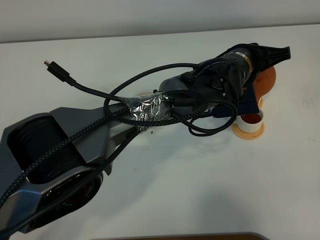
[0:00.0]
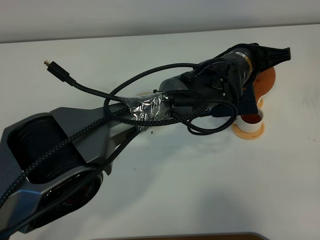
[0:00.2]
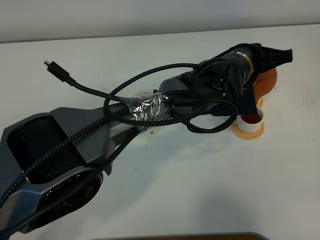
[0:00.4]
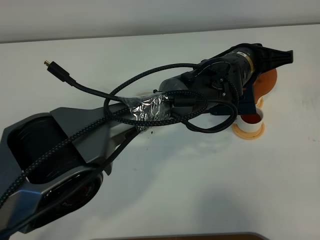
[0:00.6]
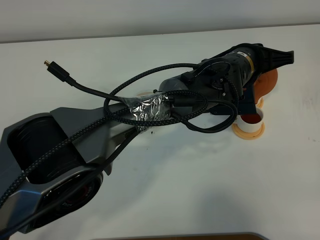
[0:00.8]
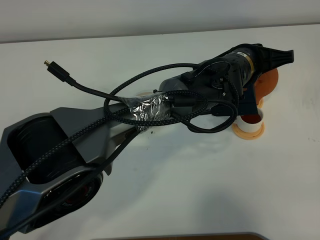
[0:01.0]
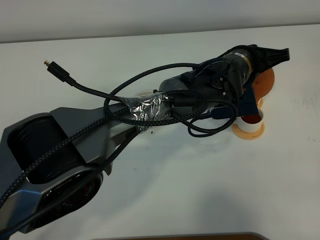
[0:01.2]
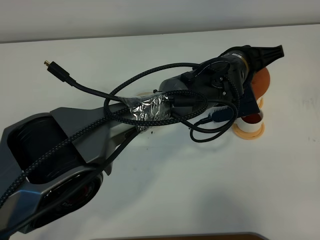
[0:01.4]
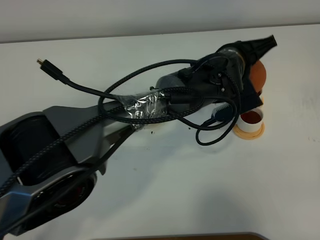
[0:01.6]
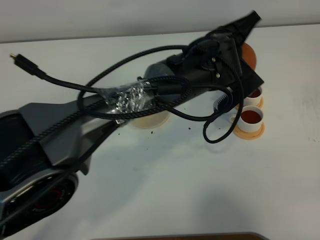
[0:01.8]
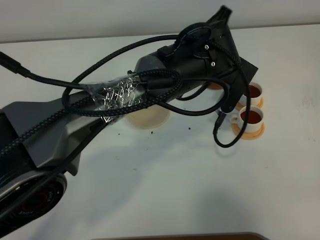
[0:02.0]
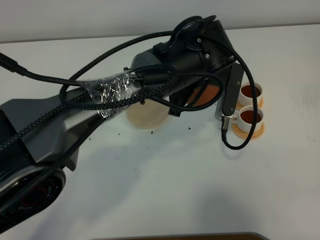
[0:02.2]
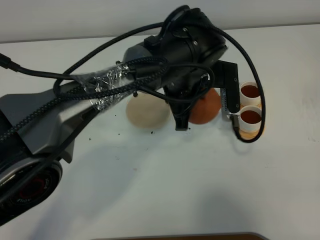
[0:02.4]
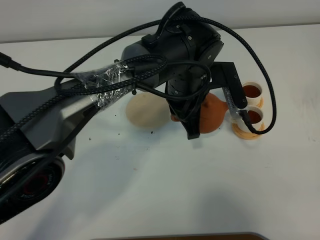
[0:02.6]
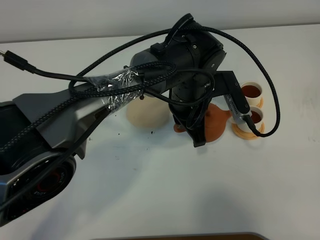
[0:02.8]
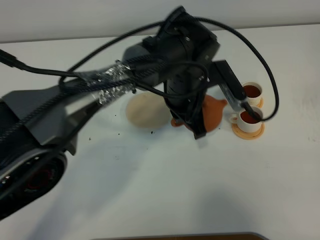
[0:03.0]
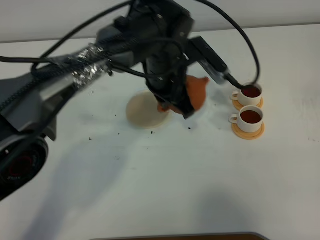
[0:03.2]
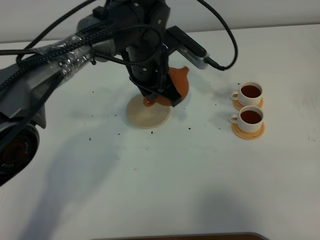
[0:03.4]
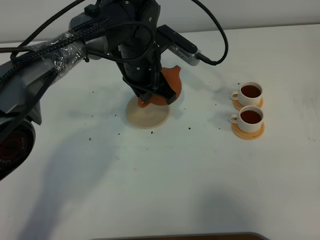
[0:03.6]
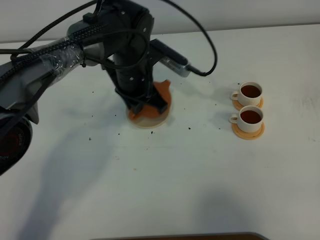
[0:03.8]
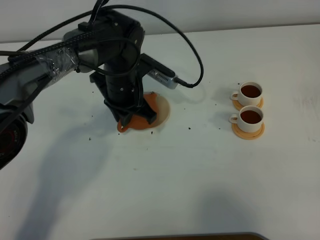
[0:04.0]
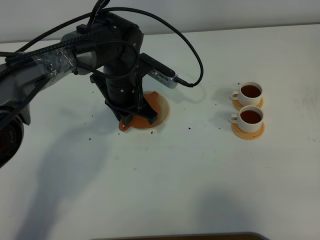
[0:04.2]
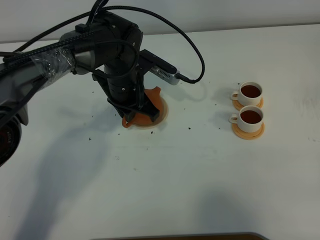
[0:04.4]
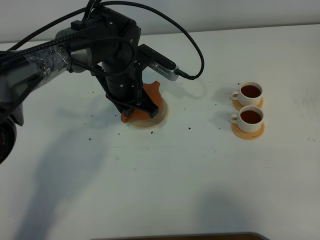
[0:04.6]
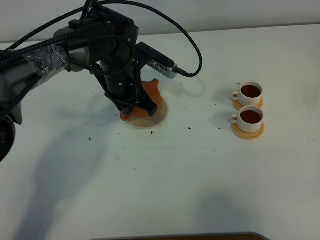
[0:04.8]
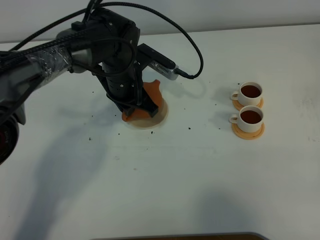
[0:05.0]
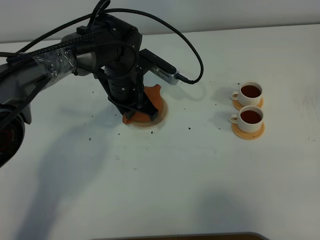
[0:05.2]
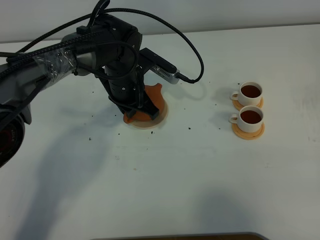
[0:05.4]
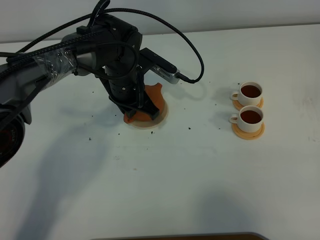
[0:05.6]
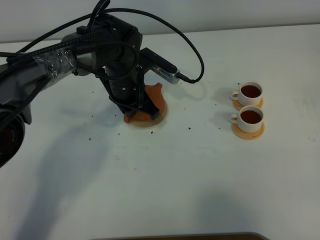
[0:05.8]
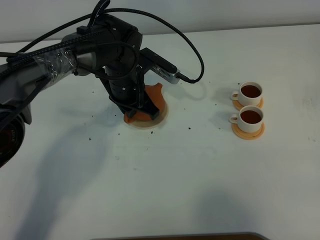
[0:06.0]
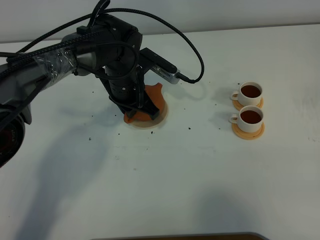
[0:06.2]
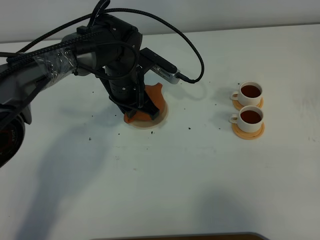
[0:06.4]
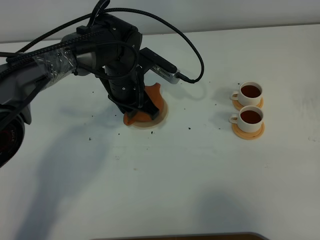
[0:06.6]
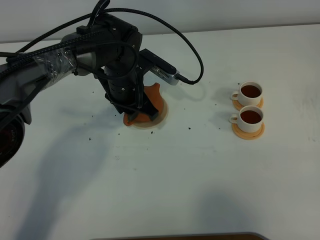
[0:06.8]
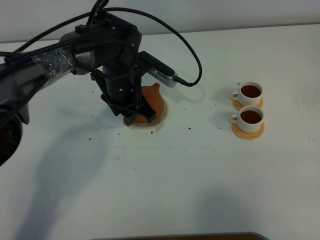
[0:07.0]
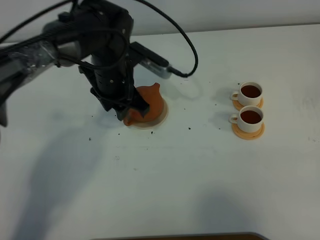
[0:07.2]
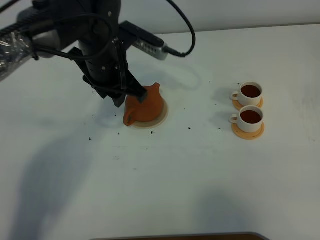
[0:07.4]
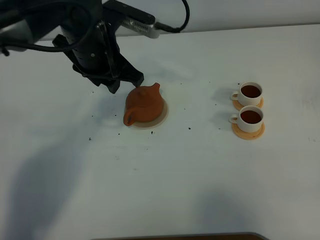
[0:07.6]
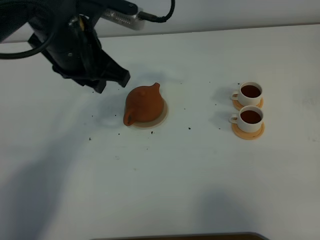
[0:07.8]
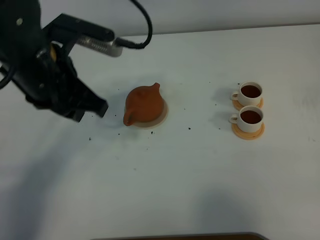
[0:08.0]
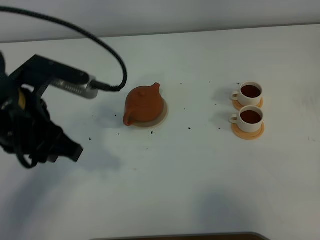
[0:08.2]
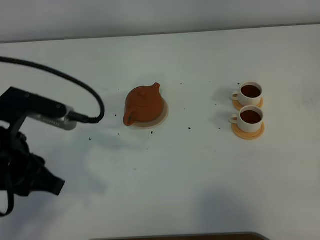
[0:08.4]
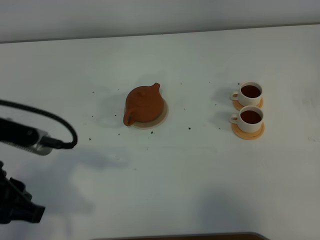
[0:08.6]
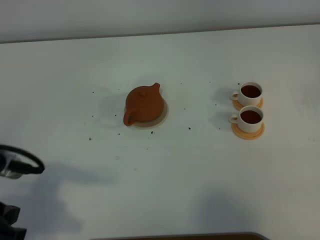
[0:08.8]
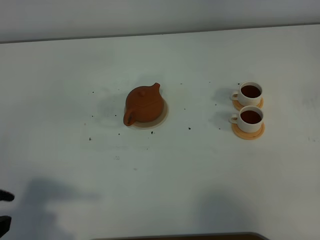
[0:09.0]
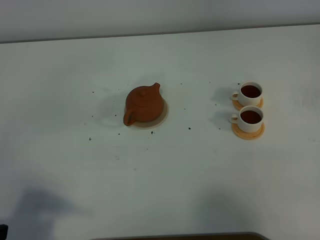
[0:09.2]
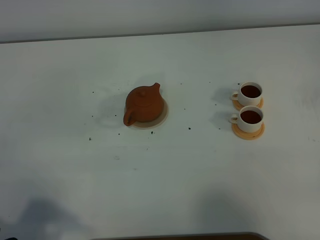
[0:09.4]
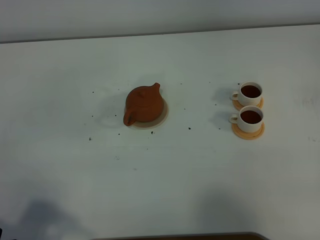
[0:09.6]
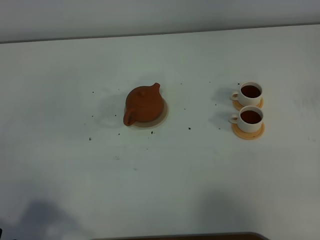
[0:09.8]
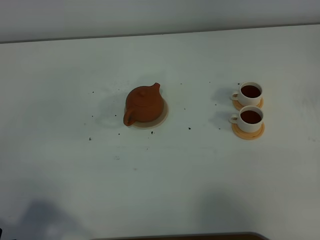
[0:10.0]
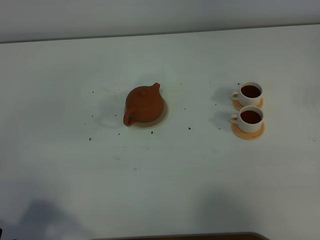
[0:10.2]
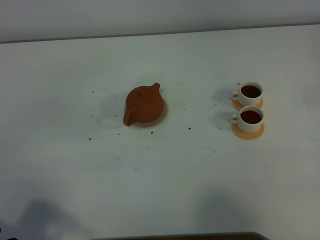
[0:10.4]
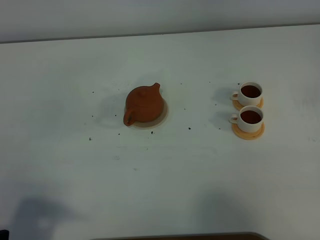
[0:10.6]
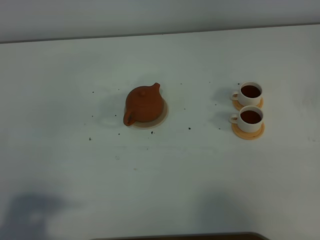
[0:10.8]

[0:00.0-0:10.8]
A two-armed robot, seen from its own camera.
Task of the whole recording: grasp the brown teapot and pour the tea into the two white teacups one by one, put the brown teapot back in its original place.
Step, 0:00.0 to 0:02.2: Pour tea into the teacup with the left gripper.
0:00.0 to 0:01.6: The grippers stay close to where they were, moving slightly.
0:01.6 to 0:03.0: The left gripper goes some 10 cm to the left.
0:03.0 to 0:04.6: The left gripper heads to the left, covering roughly 10 cm.
0:04.6 to 0:06.2: The grippers stay close to where they were, moving slightly.
0:06.2 to 0:07.8: The left gripper moves upward and backward, approximately 20 cm, and opens up.
0:07.8 to 0:09.2: The left gripper goes approximately 30 cm backward and to the left.

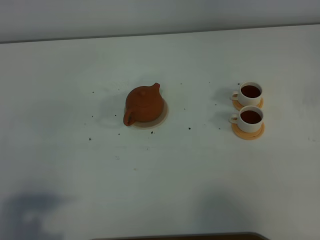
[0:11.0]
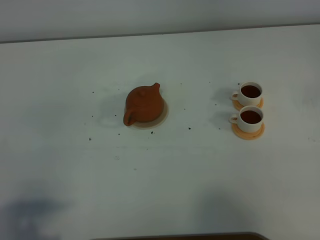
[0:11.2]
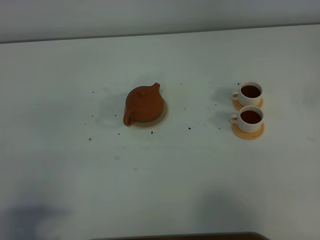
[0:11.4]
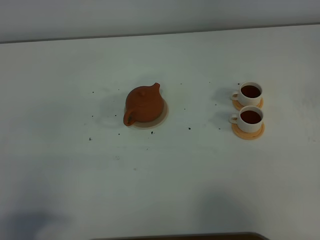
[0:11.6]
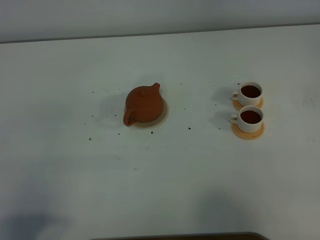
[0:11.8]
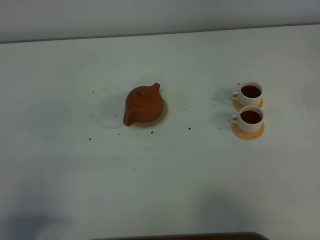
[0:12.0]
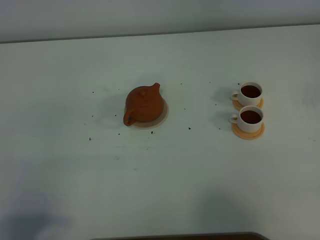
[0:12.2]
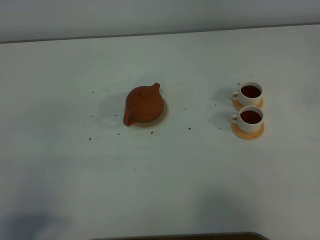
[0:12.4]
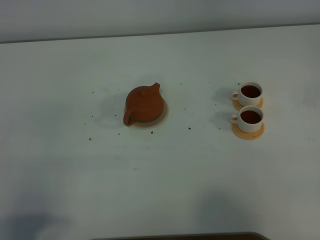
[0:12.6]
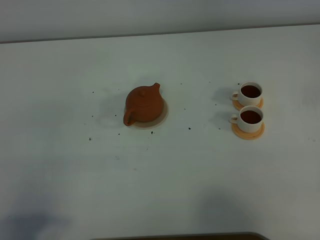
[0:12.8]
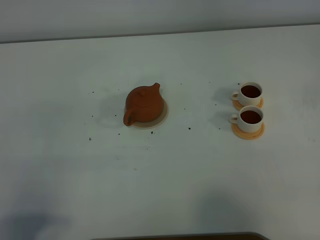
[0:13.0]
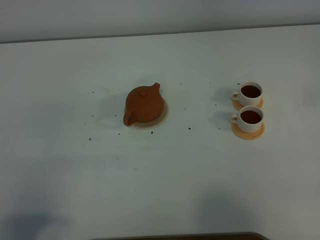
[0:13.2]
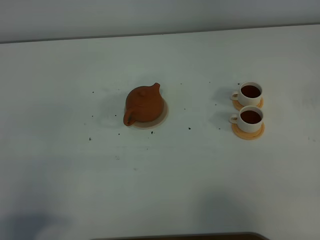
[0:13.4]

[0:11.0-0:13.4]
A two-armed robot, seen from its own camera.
Task of the whole recording: grasp the brown teapot and pour the tea into the two white teacups one by one, put the brown teapot back in its original place.
0:12.2 to 0:13.4: Neither gripper changes place.

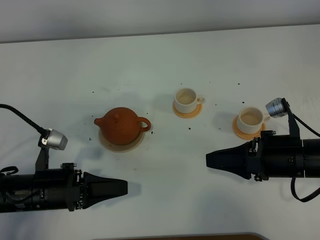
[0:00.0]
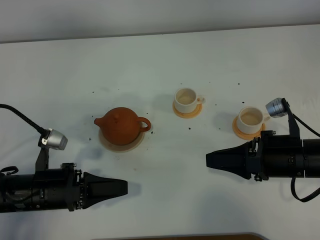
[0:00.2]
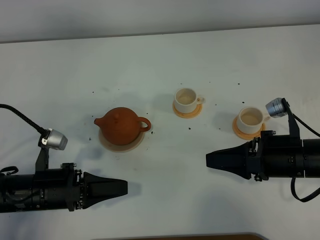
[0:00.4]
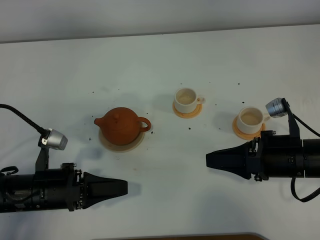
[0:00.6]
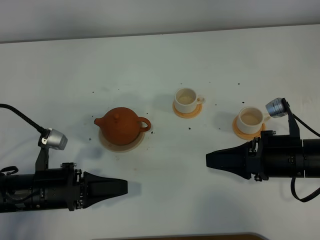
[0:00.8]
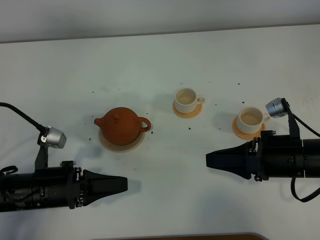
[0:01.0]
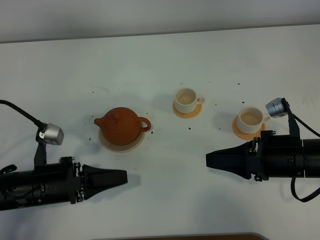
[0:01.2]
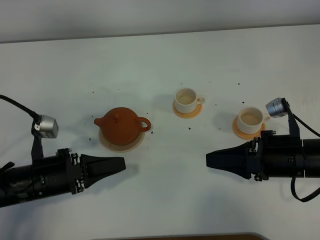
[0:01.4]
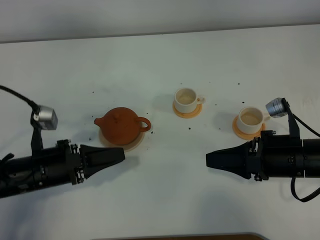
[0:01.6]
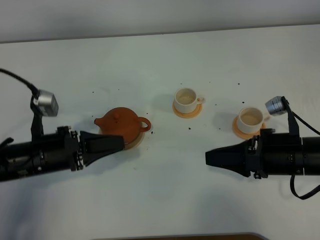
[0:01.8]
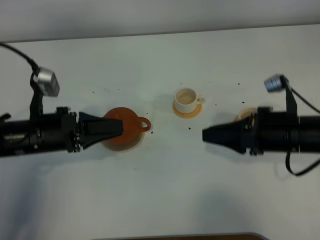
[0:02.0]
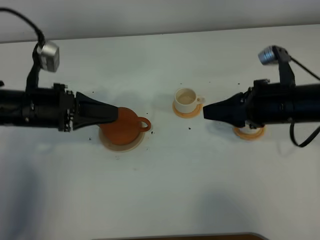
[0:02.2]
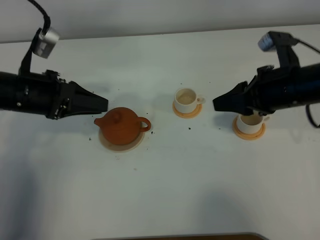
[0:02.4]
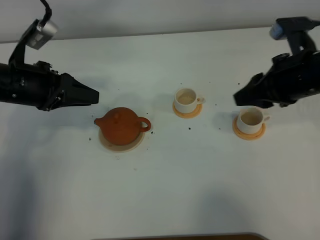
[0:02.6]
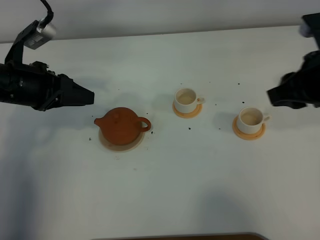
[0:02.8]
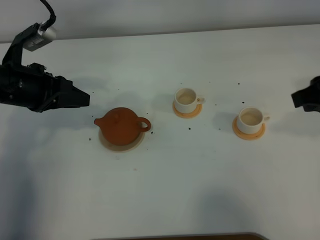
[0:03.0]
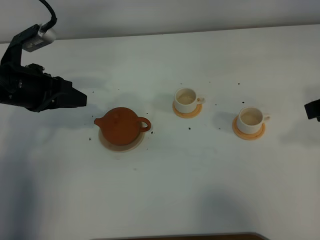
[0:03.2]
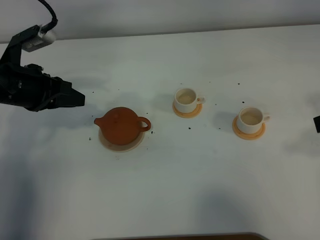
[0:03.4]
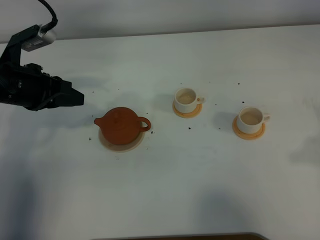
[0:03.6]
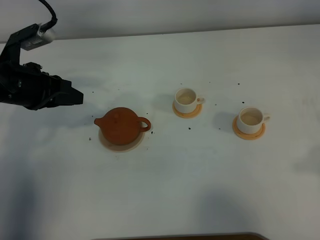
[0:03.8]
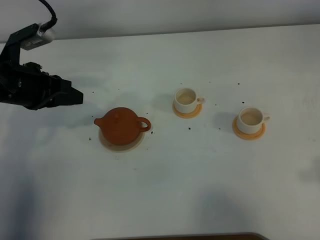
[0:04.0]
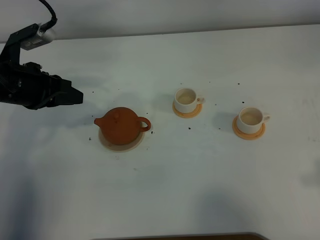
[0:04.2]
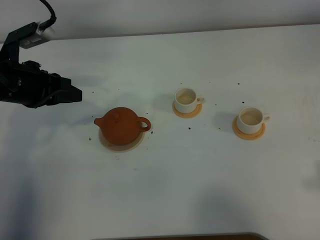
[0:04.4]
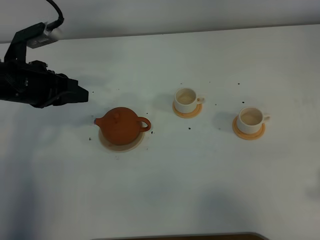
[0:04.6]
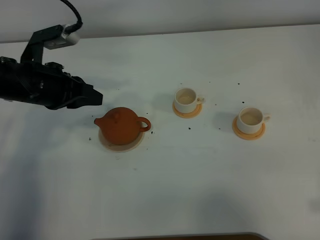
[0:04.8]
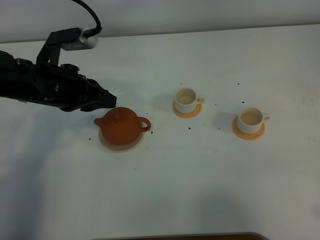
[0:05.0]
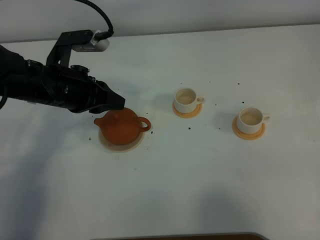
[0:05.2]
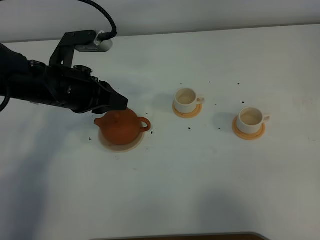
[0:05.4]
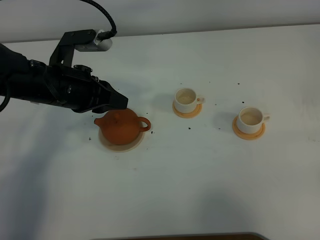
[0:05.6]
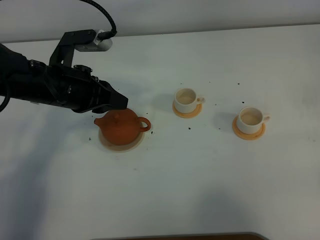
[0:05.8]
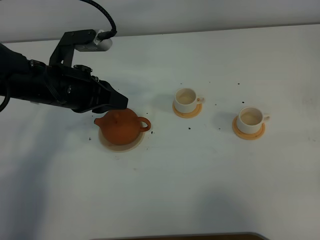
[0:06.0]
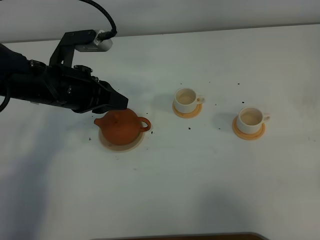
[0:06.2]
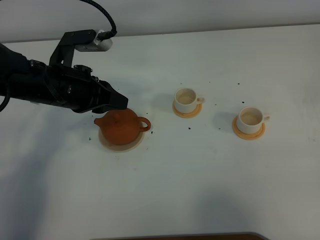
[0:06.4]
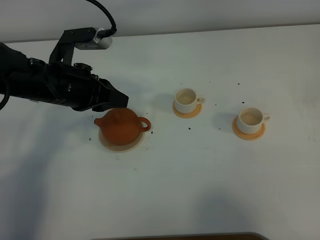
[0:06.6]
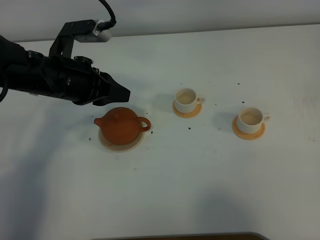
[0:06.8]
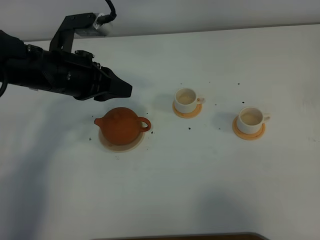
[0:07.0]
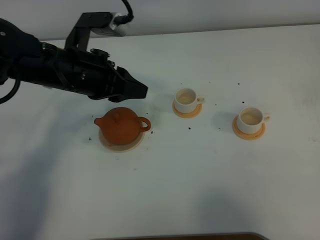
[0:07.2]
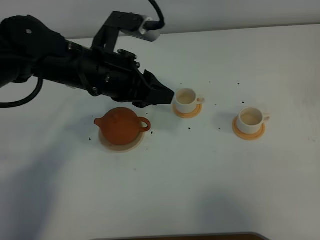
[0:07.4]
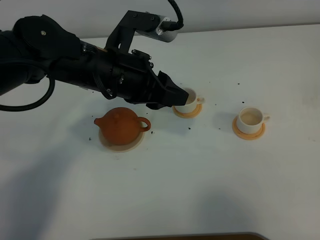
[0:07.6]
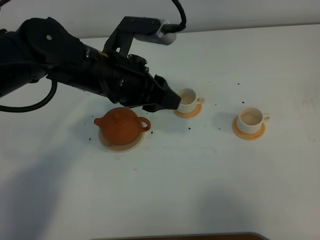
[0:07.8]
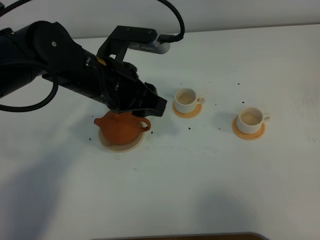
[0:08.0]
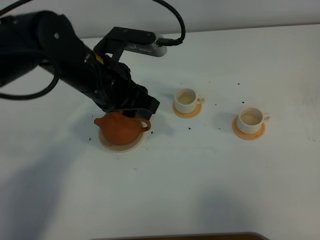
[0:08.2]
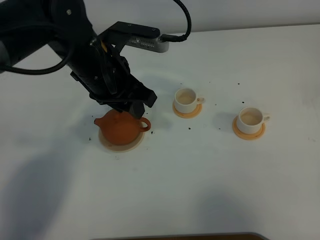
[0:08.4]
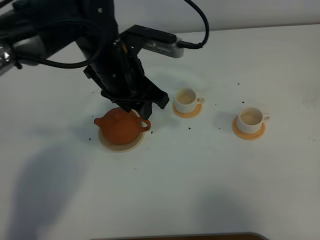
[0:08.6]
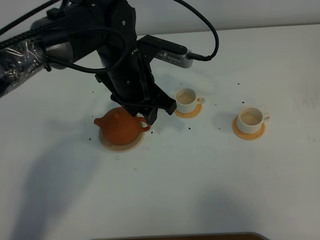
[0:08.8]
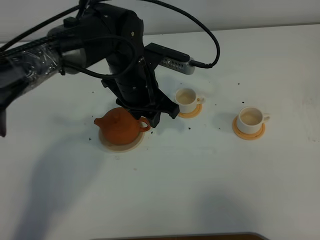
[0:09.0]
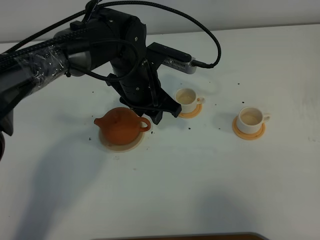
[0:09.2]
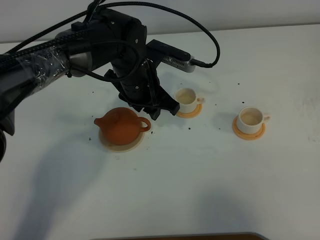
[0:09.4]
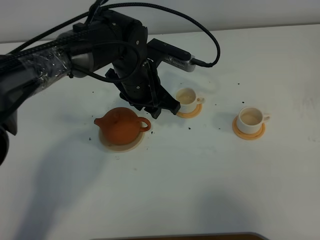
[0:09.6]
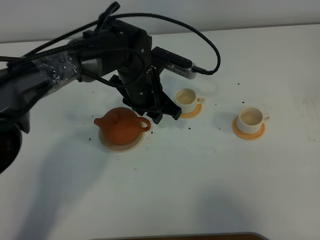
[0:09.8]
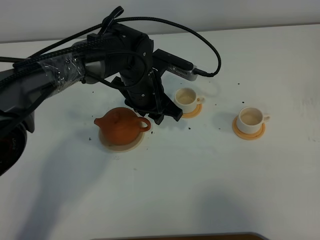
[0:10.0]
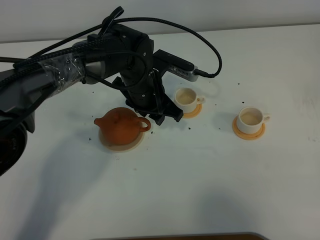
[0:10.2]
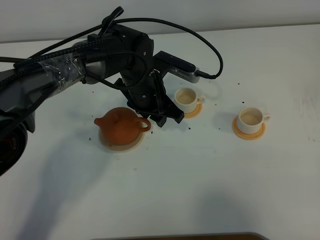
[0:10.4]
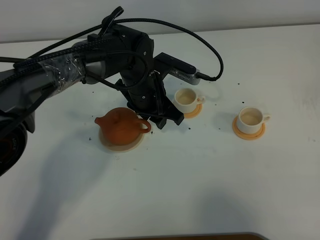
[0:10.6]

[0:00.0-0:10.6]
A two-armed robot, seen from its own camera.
Task of the whole recording: grasp the brown teapot and pour the tea into the two white teacups one by one, put the brown teapot back in its original place.
0:00.0 to 0:01.6: The grippers move only a little.
0:01.6 to 0:03.0: The left gripper goes roughly 15 cm forward and upward, while the right gripper is displaced upward by roughly 15 cm.
0:03.0 to 0:04.6: The right gripper moves backward and to the right, some 15 cm.
0:04.6 to 0:06.0: The right gripper shifts approximately 5 cm backward; the left gripper shifts about 5 cm to the right.
0:06.0 to 0:07.6: The right gripper closes. The left gripper goes some 10 cm to the right, and opens its fingers.
0:07.6 to 0:09.0: The left gripper travels downward and forward by approximately 10 cm.
0:09.0 to 0:10.6: There are only small adjustments of the grippers.
